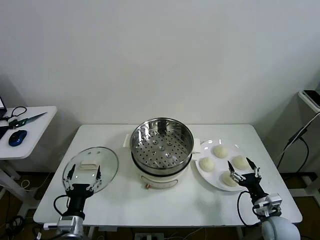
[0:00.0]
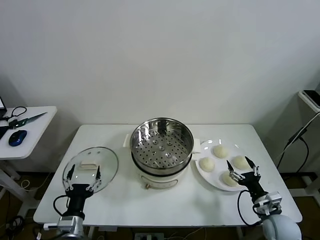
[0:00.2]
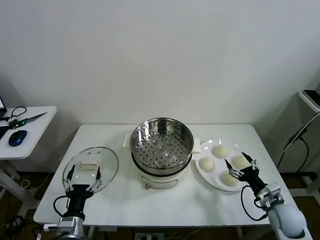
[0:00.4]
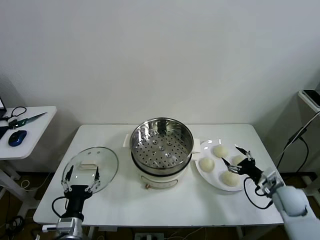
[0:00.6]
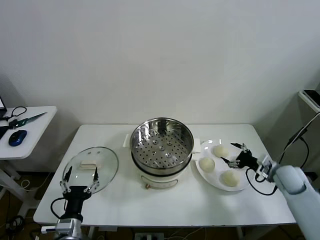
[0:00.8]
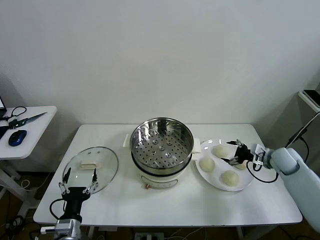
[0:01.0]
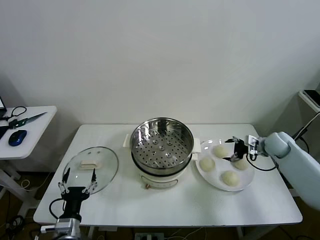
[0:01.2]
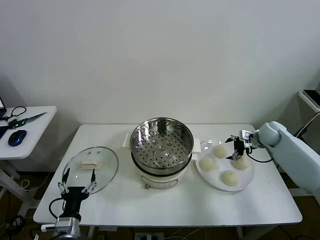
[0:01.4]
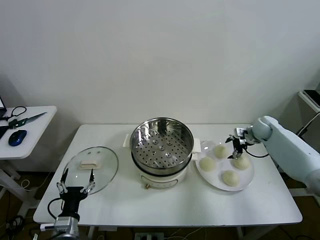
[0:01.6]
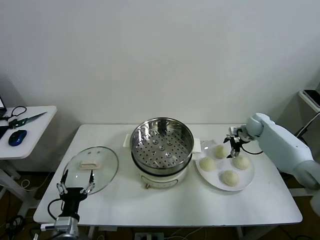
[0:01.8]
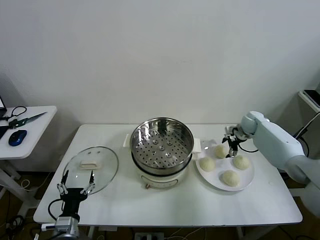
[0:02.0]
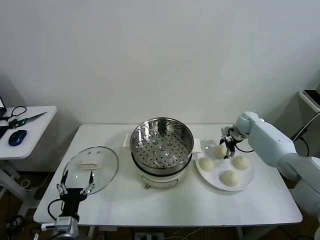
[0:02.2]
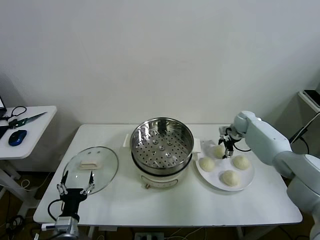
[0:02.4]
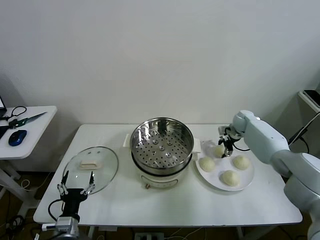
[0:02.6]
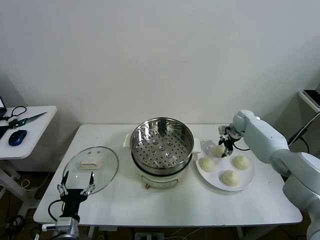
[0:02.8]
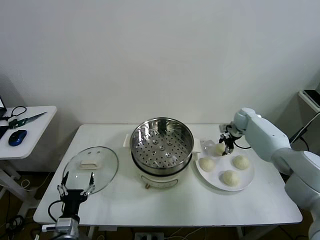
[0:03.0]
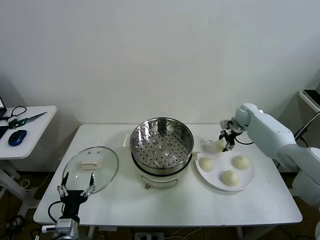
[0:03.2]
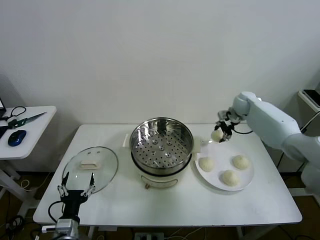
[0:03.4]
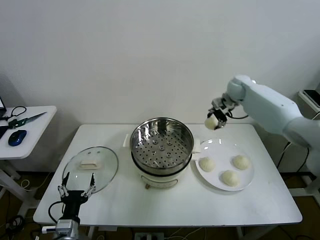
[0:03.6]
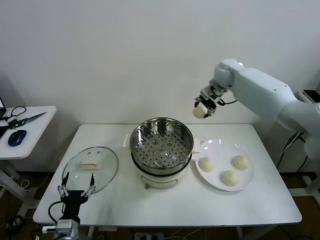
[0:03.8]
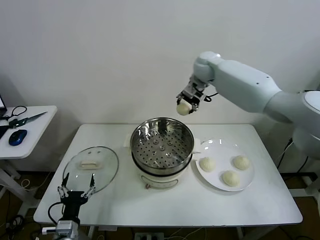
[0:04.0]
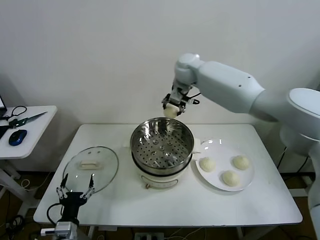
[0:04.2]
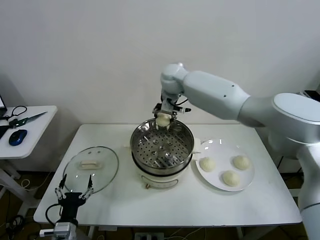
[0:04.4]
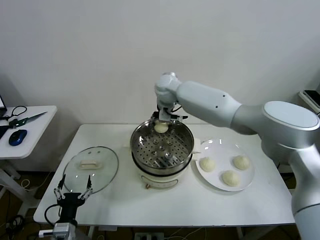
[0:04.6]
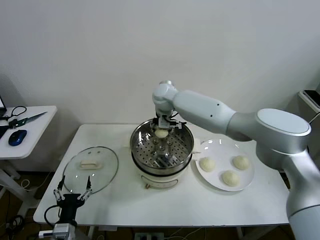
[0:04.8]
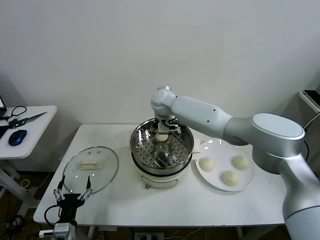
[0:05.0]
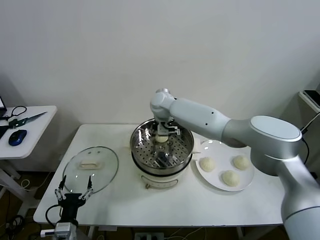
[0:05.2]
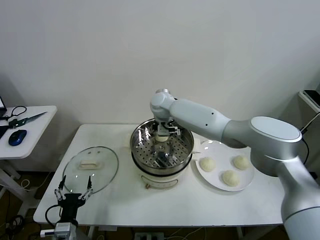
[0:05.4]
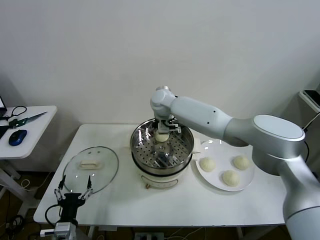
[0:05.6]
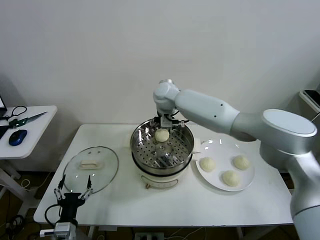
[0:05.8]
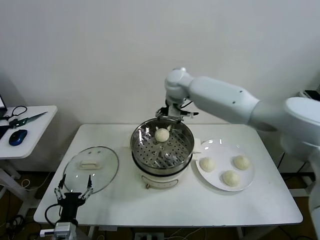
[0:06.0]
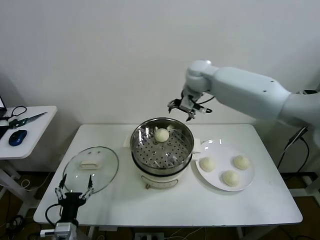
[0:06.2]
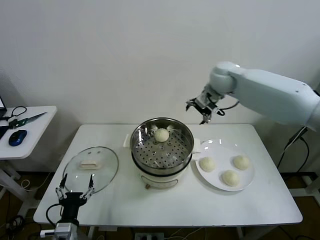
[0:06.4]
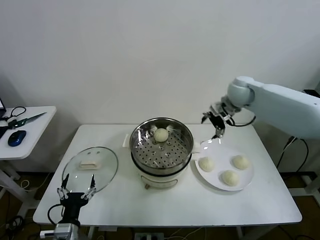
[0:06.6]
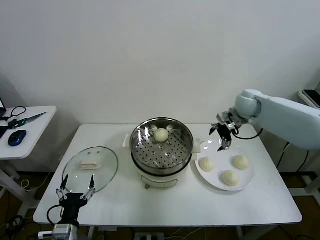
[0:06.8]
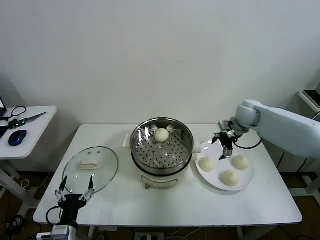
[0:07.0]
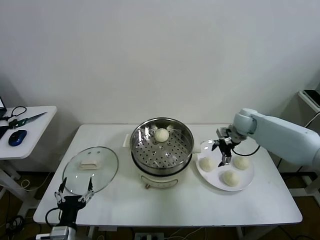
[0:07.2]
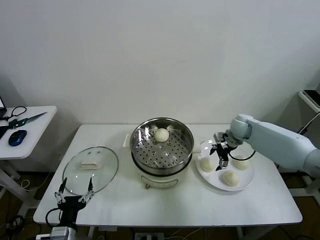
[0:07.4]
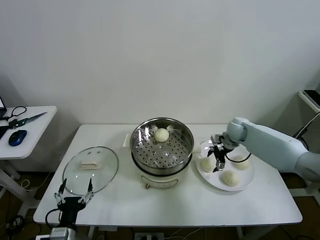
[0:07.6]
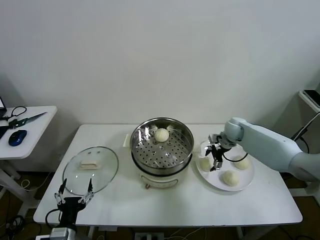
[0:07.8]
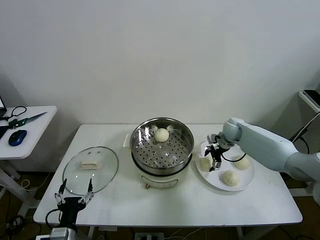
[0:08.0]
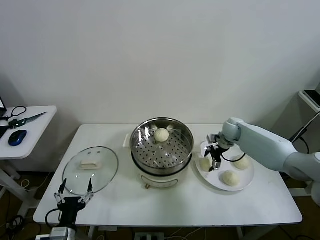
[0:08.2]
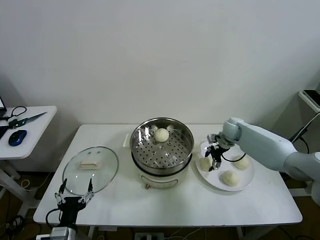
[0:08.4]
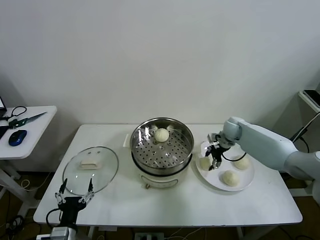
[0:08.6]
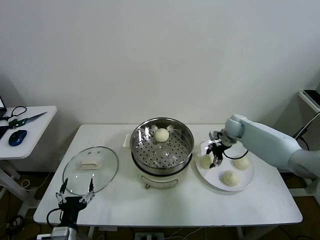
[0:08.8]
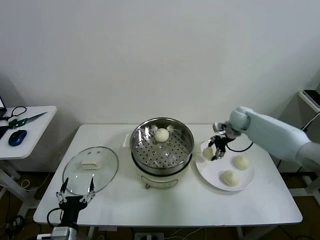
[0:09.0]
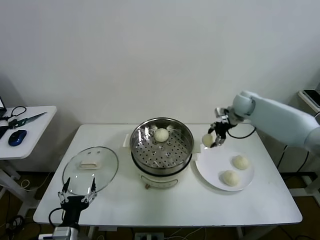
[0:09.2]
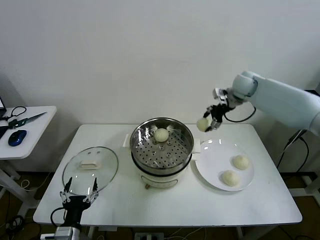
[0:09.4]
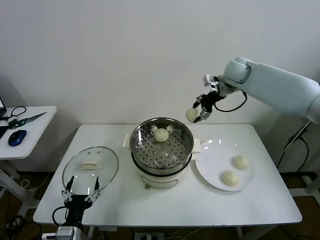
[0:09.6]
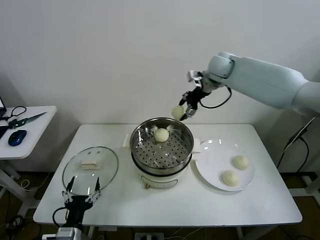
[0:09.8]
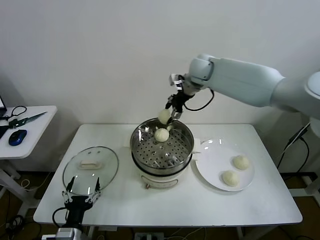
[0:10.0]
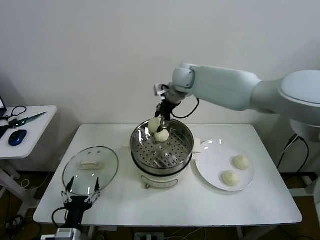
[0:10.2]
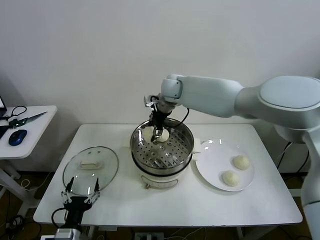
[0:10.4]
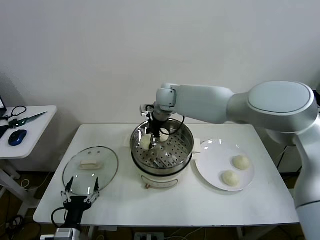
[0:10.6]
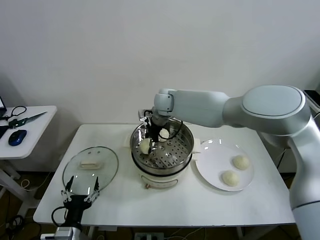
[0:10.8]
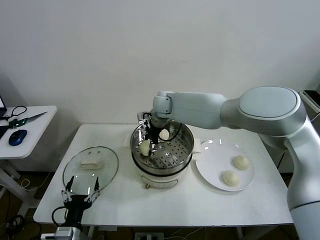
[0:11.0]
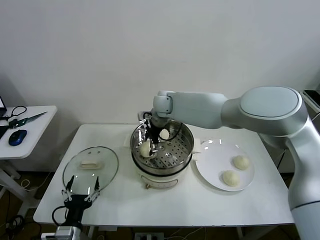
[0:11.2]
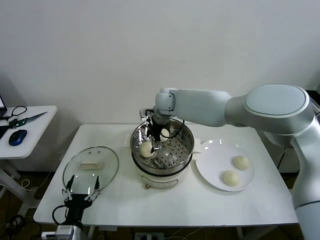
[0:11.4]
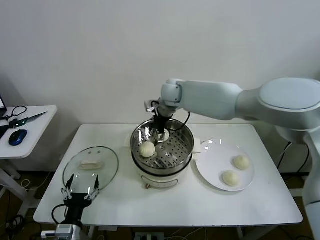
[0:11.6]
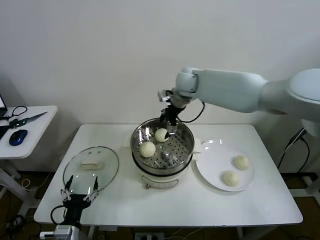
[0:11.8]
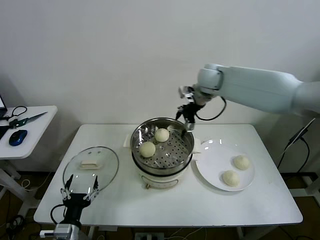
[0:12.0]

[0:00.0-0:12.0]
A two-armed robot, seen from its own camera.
Task of the whole recording: take steamed baozi put them in steamer then cover it.
Step, 0:00.0 to 0:02.8: Grasp the baozi in the plate with right gripper.
Step, 0:03.0 to 0:05.4: Place the baozi on the steamer with right gripper.
Step, 0:05.6 to 0:08.4: Grasp the baozi in the plate with right gripper.
Step, 0:08.8 to 0:11.2: Place the baozi on the steamer with right gripper.
0:01.6 to 0:03.0: The right gripper changes place by roughly 5 cm, and closes up.
0:03.0 to 0:04.4: The right gripper heads to the left and upward, covering about 40 cm.
0:04.4 to 0:06.0: The right gripper moves to the right, roughly 5 cm, travels downward and back again, approximately 10 cm each way, and opens its fingers.
0:06.0 to 0:07.6: The right gripper is displaced downward and to the right by roughly 30 cm.
0:07.6 to 0:09.0: The right gripper moves upward, roughly 5 cm, and closes its fingers.
0:09.0 to 0:10.4: The right gripper shifts about 30 cm to the left.
0:10.4 to 0:12.0: The right gripper moves to the right, roughly 15 cm, and opens its fingers.

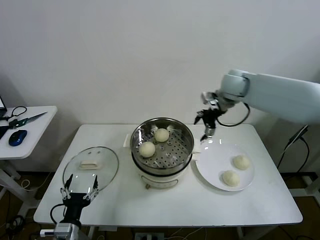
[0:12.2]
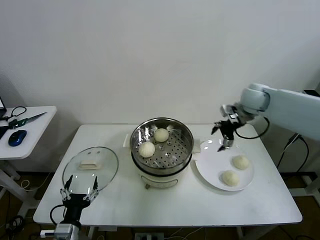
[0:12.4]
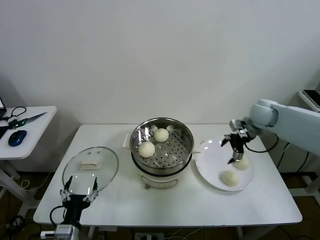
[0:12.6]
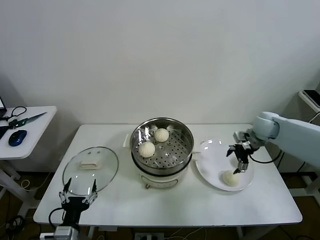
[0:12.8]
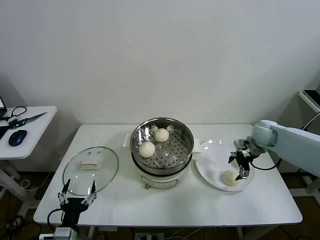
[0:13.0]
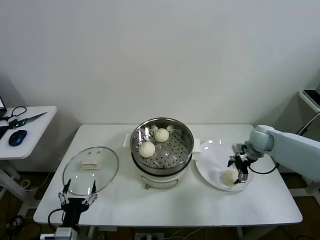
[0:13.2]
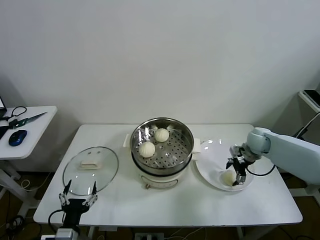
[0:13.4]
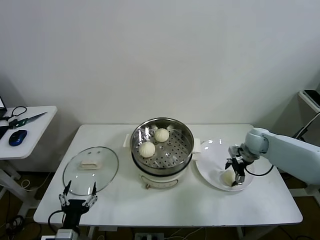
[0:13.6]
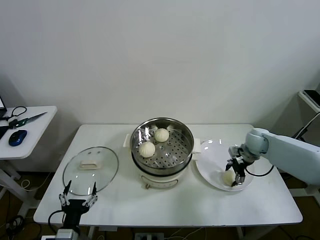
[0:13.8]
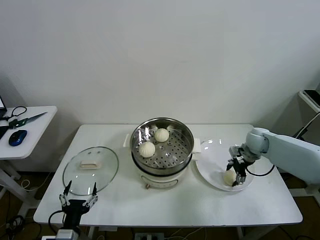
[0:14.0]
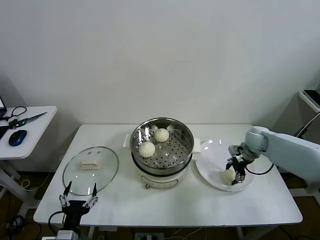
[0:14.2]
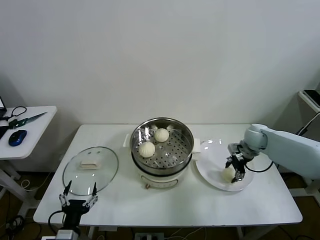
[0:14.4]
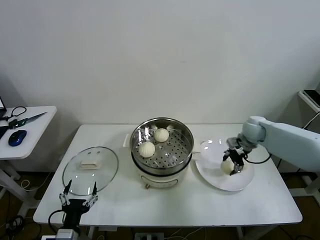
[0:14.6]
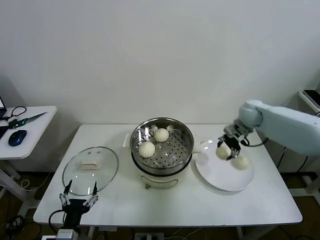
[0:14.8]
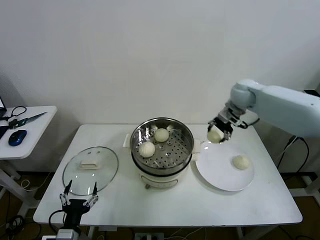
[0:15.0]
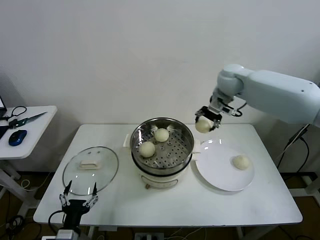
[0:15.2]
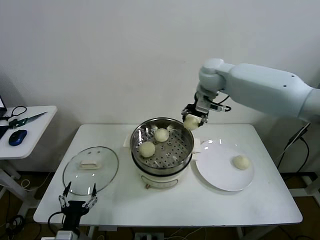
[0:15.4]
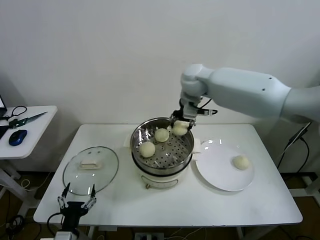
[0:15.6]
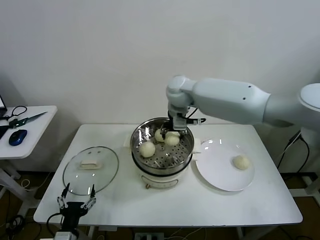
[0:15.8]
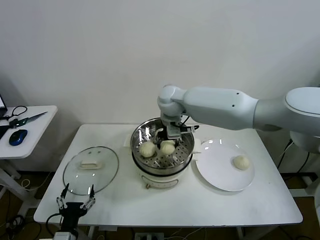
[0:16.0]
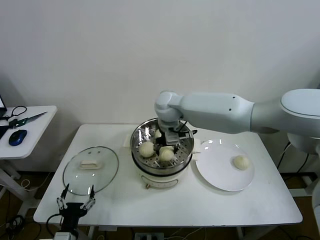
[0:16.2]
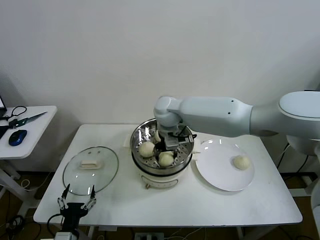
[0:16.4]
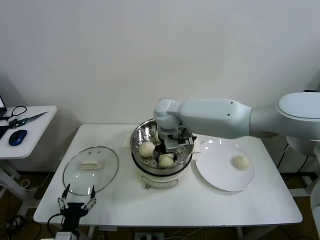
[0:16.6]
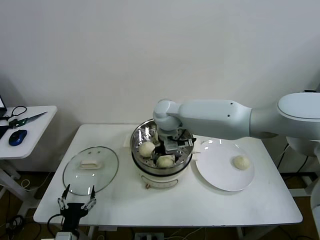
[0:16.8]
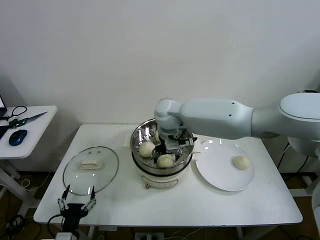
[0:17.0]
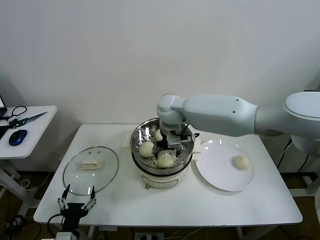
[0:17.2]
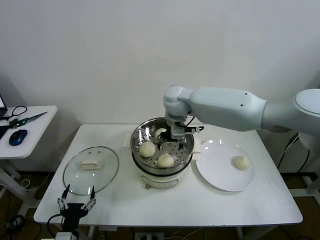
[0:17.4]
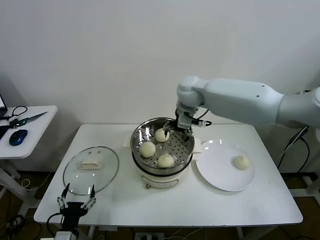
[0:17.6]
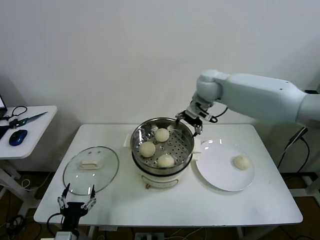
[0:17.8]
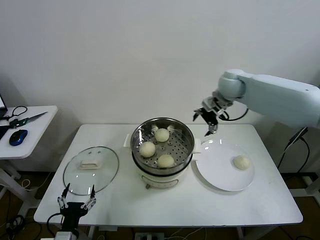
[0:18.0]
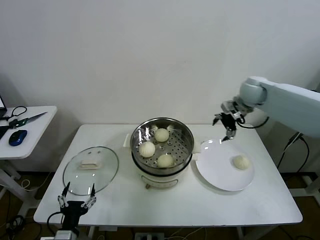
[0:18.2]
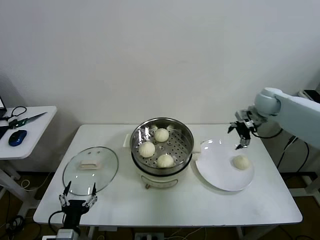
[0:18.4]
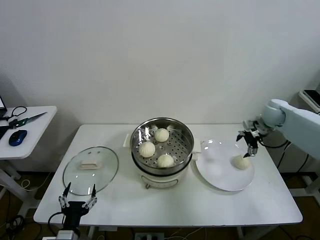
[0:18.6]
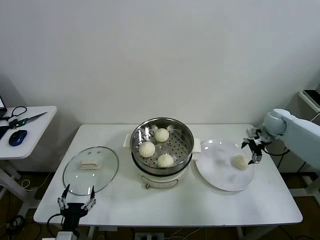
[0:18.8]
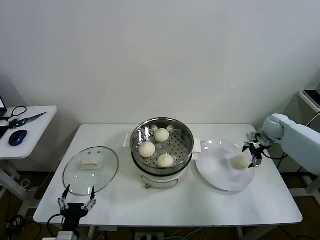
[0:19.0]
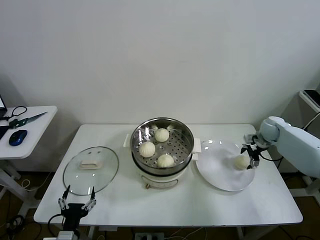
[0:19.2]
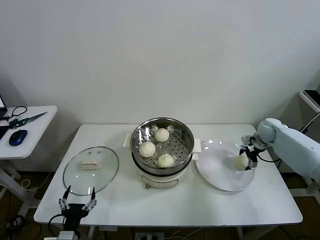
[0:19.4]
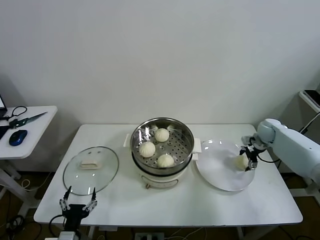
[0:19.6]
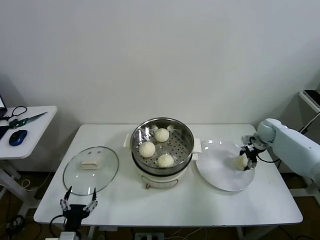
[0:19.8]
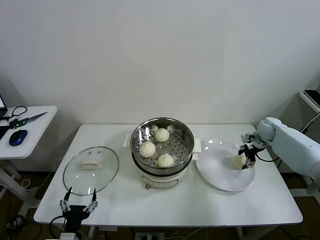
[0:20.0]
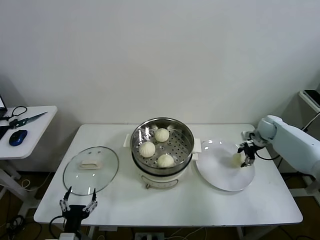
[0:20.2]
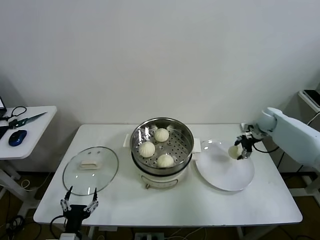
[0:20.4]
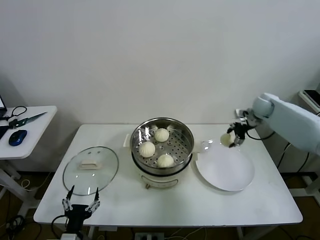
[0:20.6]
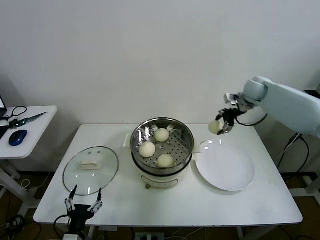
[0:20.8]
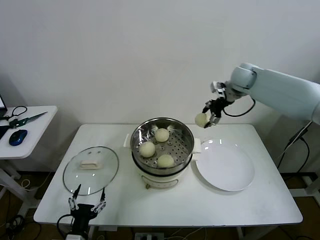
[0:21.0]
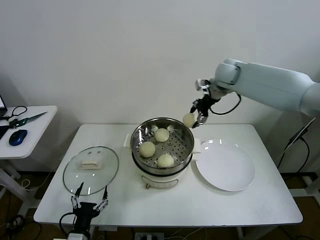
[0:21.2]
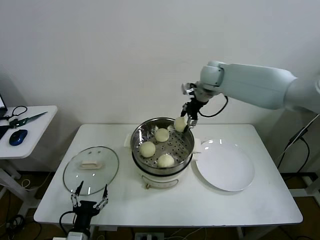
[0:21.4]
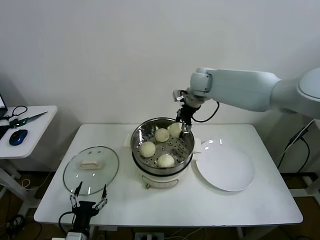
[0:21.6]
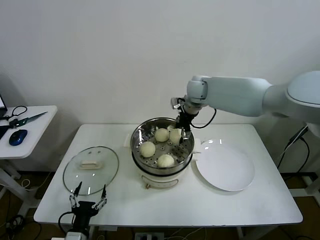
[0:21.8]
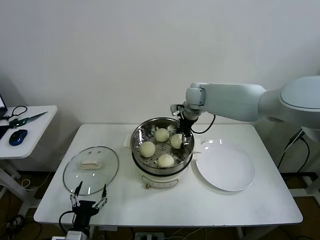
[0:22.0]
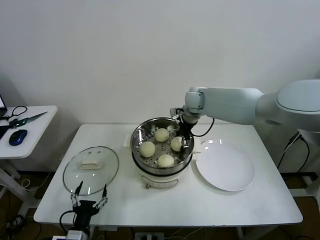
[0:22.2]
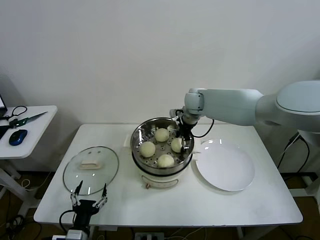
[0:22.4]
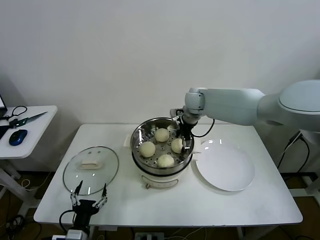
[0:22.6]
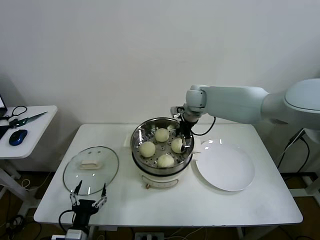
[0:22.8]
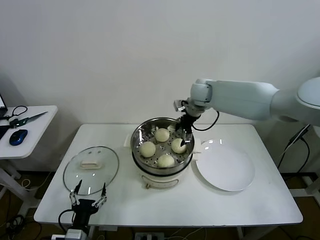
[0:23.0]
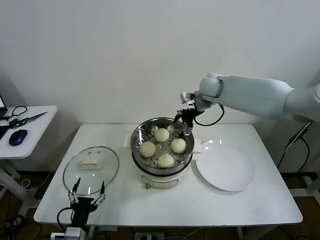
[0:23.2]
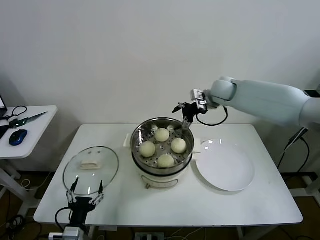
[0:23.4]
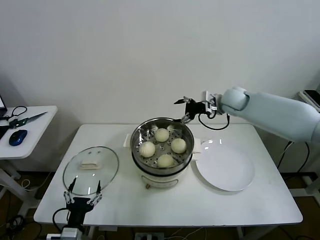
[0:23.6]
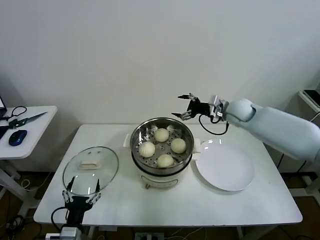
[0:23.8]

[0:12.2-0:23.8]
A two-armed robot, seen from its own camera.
Task of the whole recording: take steamed baozi put them in steamer then cover it.
Step, 0:12.2 to 0:14.0: Grasp the baozi in the plate with right gripper.
Step, 0:14.2 to 0:17.0: Place the baozi on the steamer with right gripper.
Step, 0:17.2 to 0:19.8: Grasp the baozi in the plate with right gripper.
Step, 0:20.2 to 0:22.6: Place the baozi on the steamer with right gripper.
0:12.2 to 0:13.6: The right gripper shifts about 25 cm downward and to the right.
0:13.6 to 0:15.0: The right gripper moves upward and to the left, roughly 20 cm, and closes.
0:15.0 to 0:16.6: The right gripper is displaced to the left by approximately 25 cm.
0:16.6 to 0:18.0: The right gripper heads to the right, covering roughly 25 cm, and opens its fingers.
0:18.0 to 0:19.4: The right gripper shifts approximately 30 cm downward and to the right.
0:19.4 to 0:21.0: The right gripper travels upward and to the left by some 30 cm, and closes.
0:21.0 to 0:22.4: The right gripper goes about 20 cm to the left and downward, and opens its fingers.
0:22.4 to 0:23.8: The right gripper moves to the right, roughly 15 cm.
